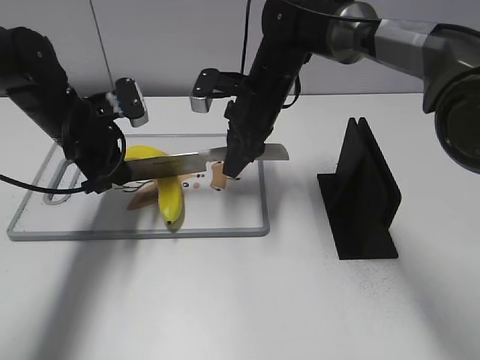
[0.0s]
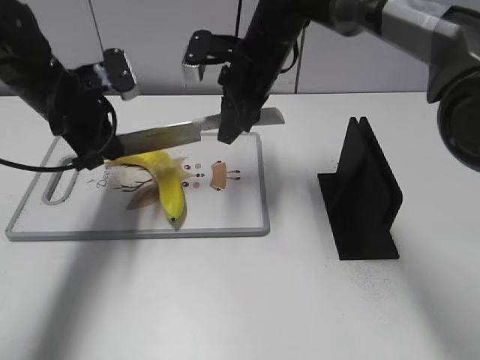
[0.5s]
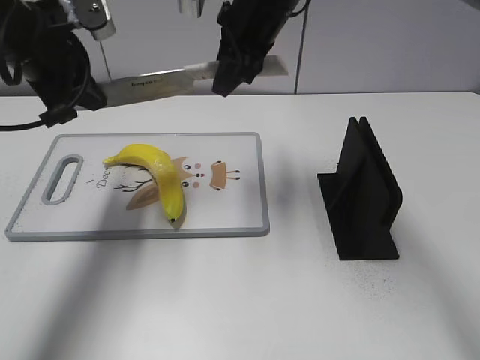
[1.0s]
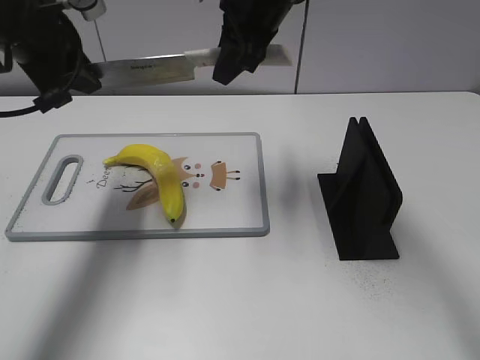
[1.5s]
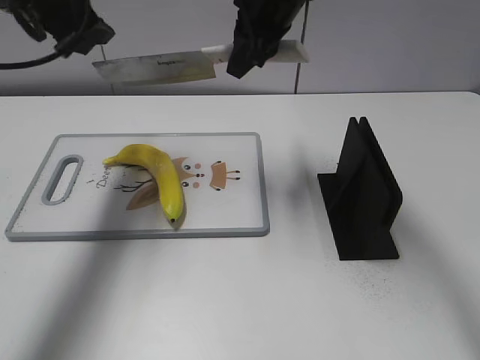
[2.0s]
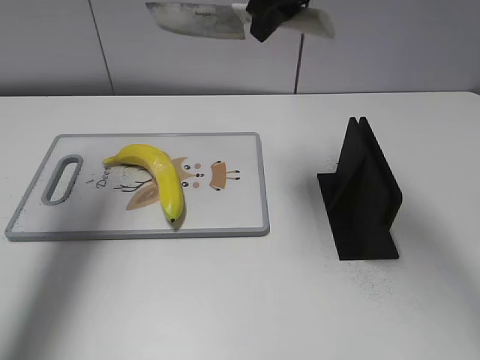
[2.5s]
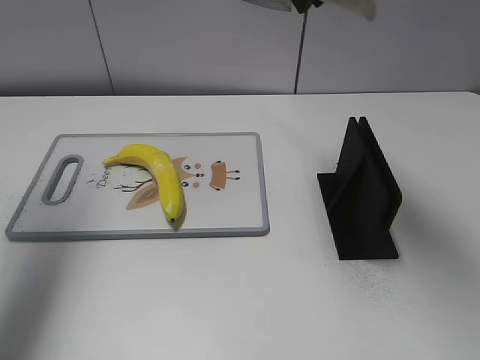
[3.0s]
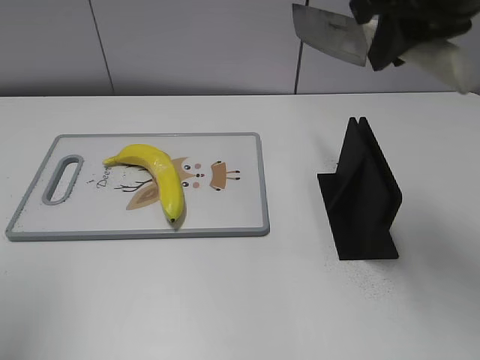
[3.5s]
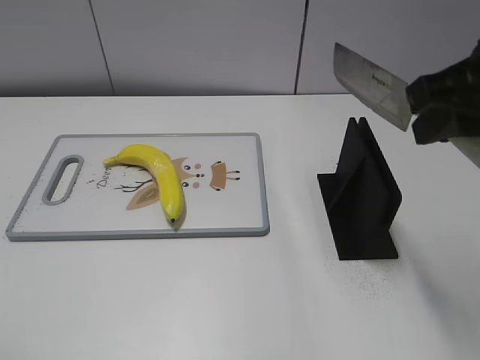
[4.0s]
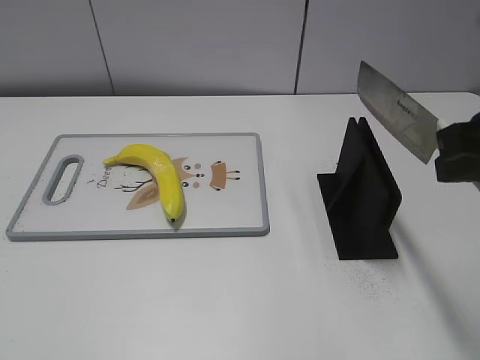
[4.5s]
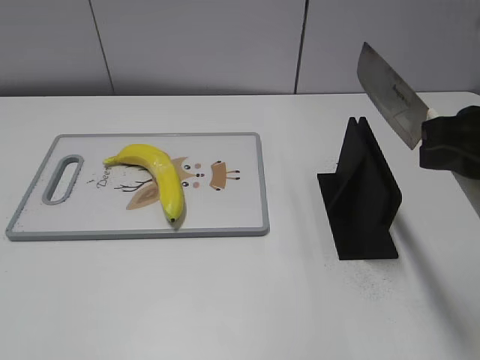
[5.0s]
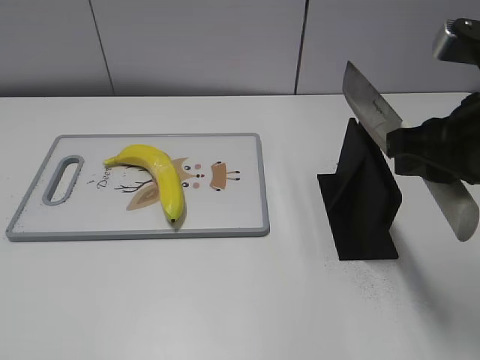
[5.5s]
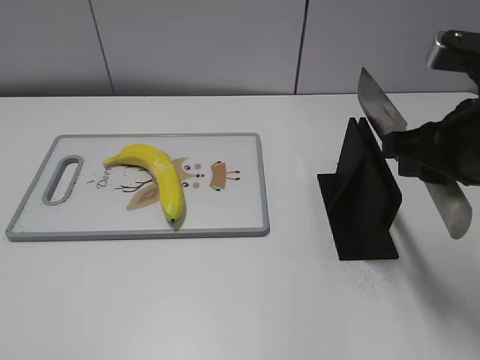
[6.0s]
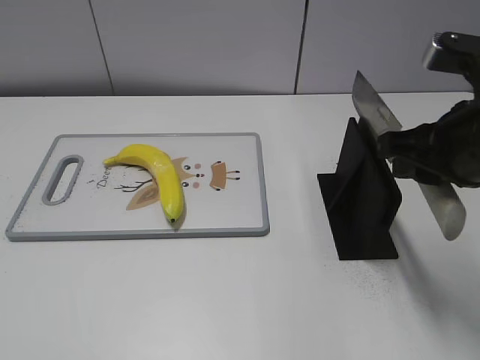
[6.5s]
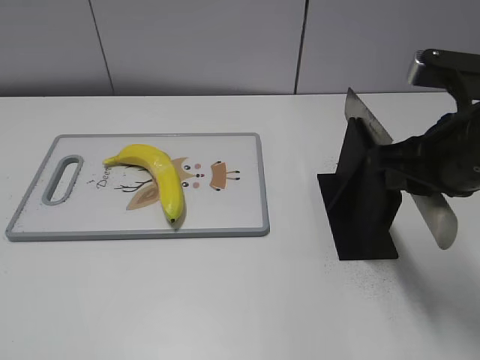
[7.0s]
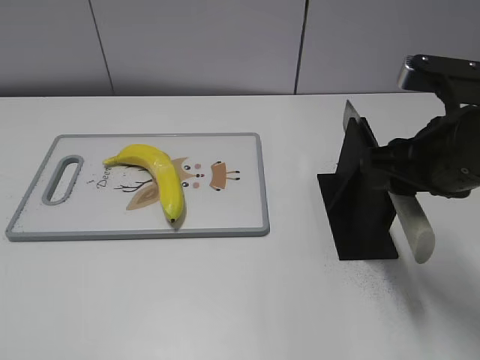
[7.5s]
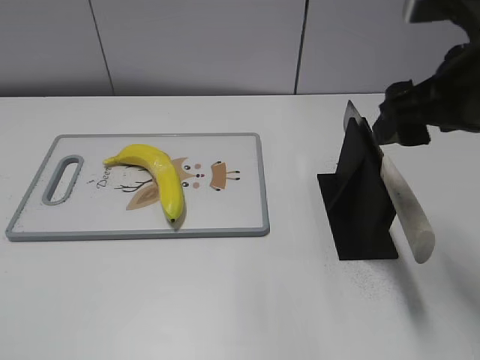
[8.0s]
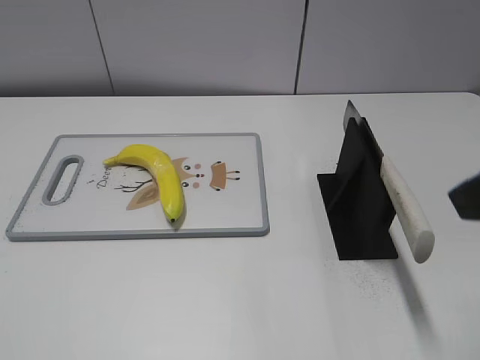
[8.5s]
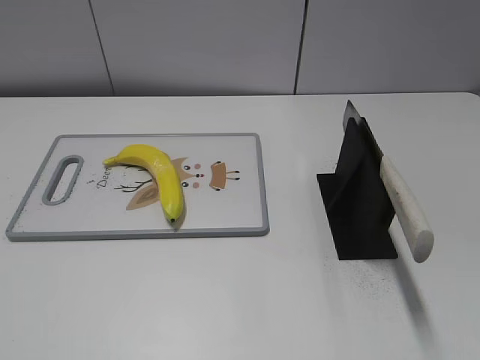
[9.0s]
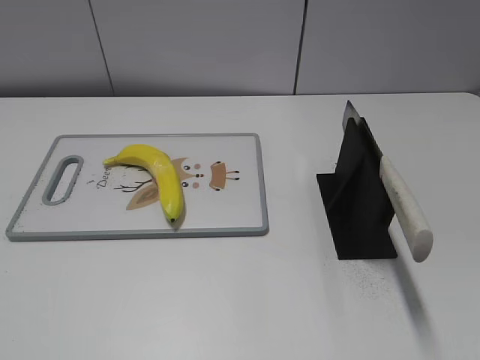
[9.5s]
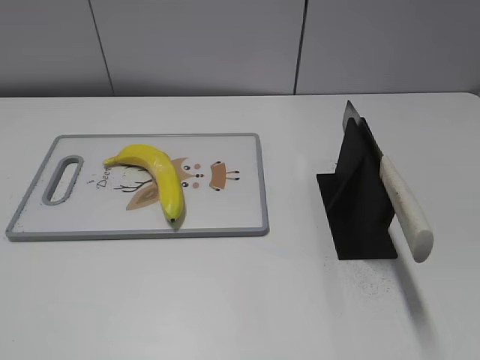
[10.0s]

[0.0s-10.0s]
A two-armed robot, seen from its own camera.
Task of the whole recording: cut plastic banana.
Step, 1.0s to 2.0s: Cut the banana with your right hand.
Step, 2.5s to 4.0s: Lift the knife with your right hand.
Step, 4.5s to 10.0s: Place the knife on the storage rack with your right hand.
0.0s to 2.0s: The two grippers go roughly 15 cm upward. The left gripper opens up.
2.0s to 4.0s: The left gripper heads backward, covering some 30 cm. Meanwhile the right gripper travels backward and to the right by some 25 cm.
4.0s to 6.0s: The right gripper shifts approximately 5 cm downward.
6.0s to 8.0s: The right gripper opens.
8.0s to 10.0s: The right gripper is displaced backward by about 25 cm.
